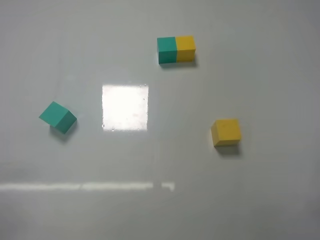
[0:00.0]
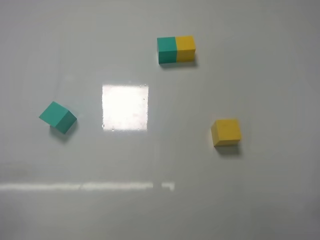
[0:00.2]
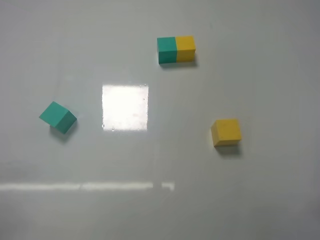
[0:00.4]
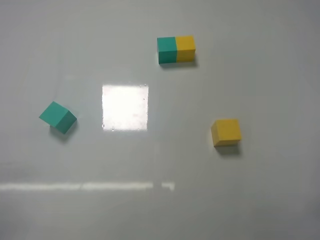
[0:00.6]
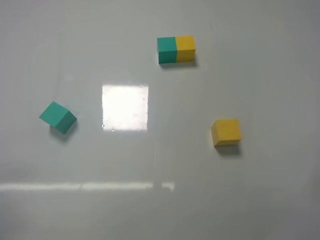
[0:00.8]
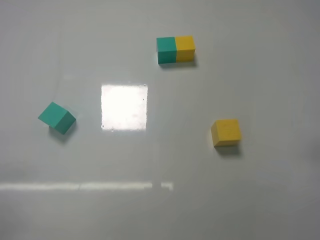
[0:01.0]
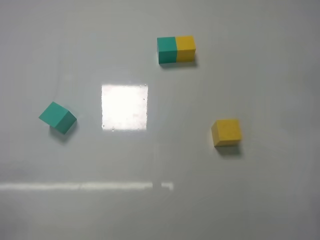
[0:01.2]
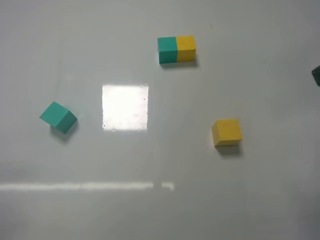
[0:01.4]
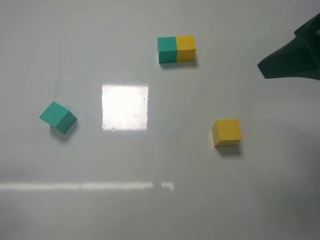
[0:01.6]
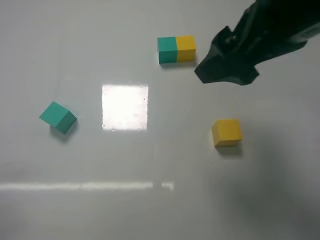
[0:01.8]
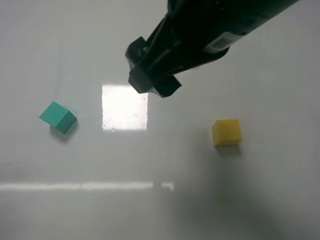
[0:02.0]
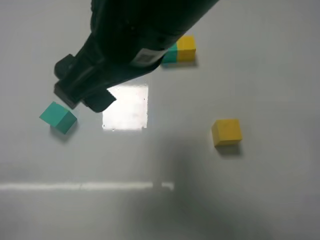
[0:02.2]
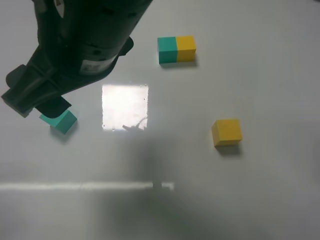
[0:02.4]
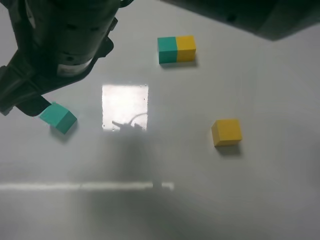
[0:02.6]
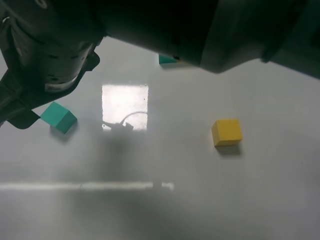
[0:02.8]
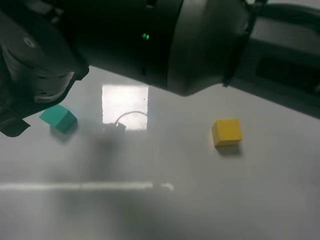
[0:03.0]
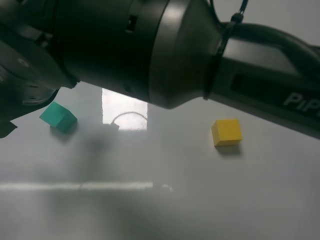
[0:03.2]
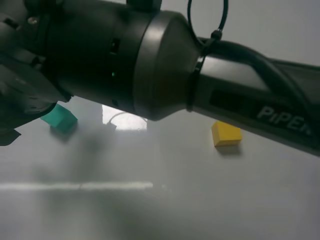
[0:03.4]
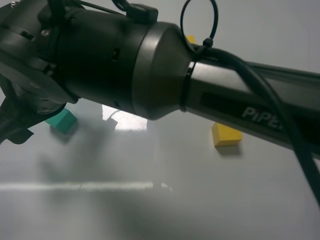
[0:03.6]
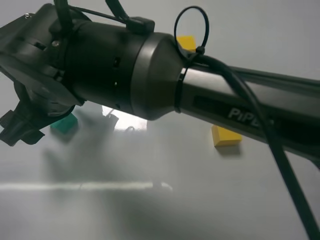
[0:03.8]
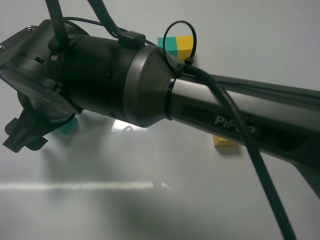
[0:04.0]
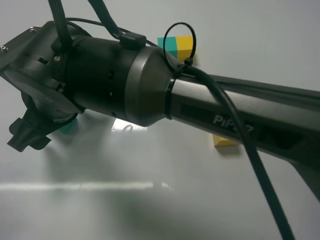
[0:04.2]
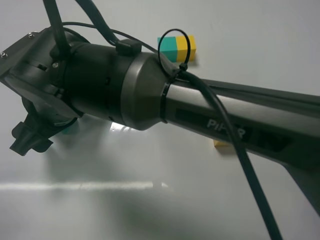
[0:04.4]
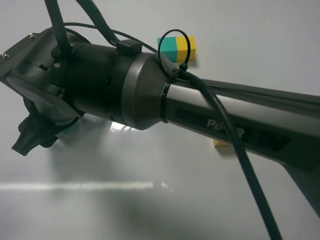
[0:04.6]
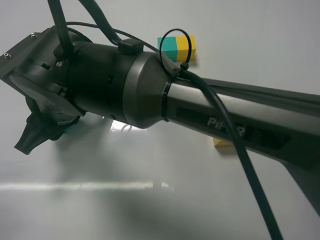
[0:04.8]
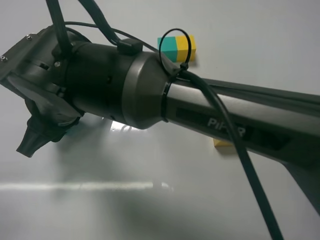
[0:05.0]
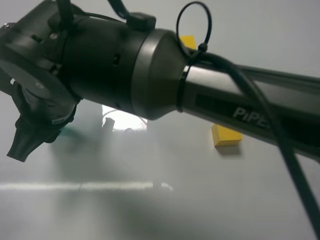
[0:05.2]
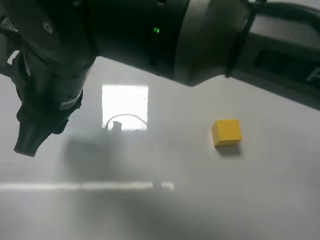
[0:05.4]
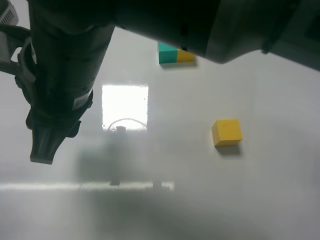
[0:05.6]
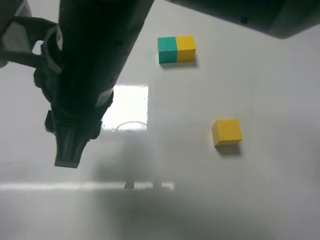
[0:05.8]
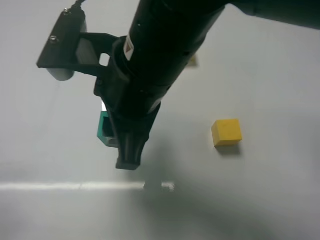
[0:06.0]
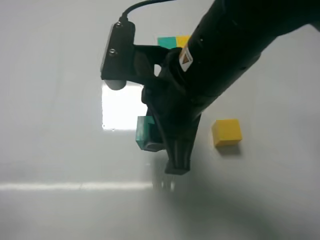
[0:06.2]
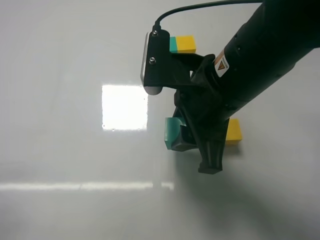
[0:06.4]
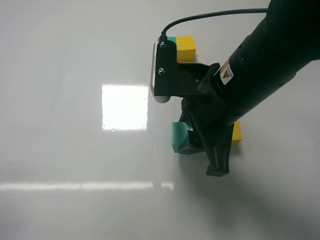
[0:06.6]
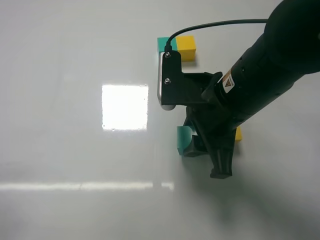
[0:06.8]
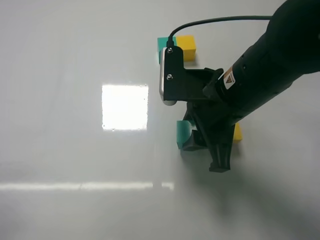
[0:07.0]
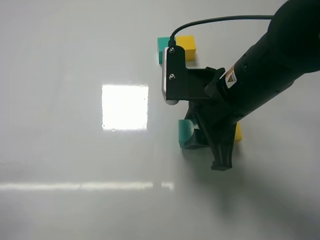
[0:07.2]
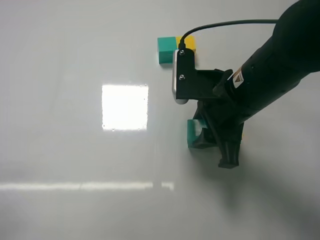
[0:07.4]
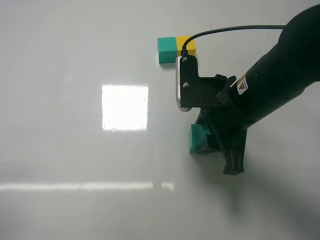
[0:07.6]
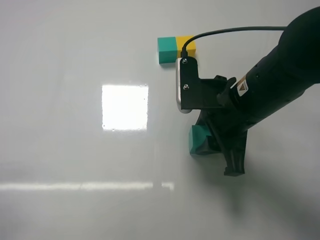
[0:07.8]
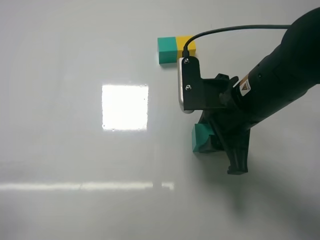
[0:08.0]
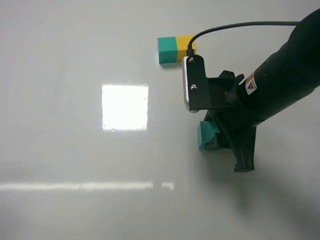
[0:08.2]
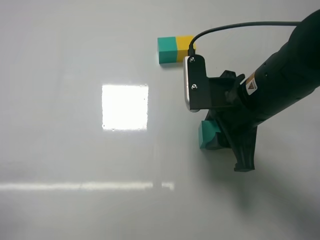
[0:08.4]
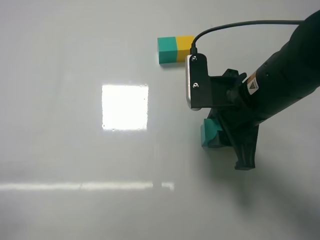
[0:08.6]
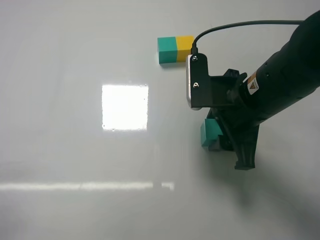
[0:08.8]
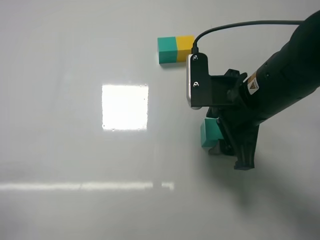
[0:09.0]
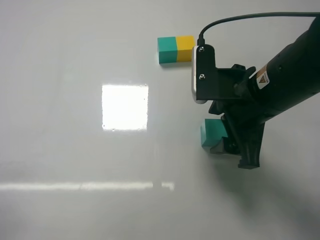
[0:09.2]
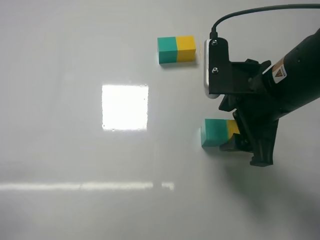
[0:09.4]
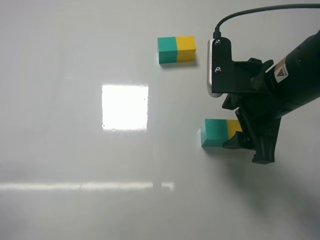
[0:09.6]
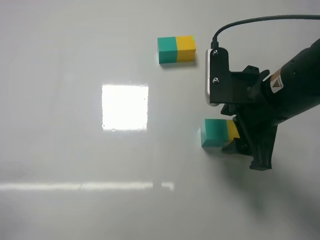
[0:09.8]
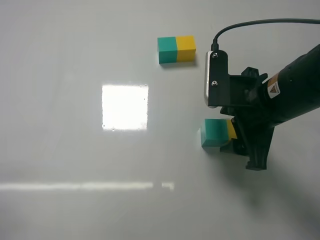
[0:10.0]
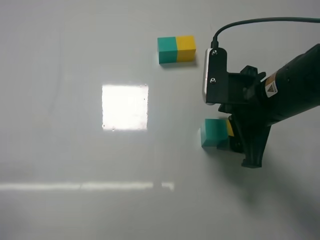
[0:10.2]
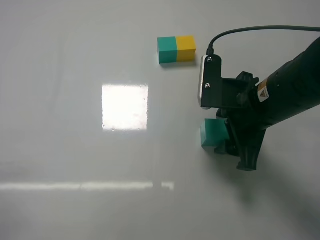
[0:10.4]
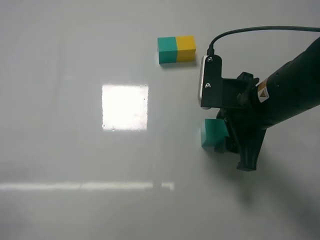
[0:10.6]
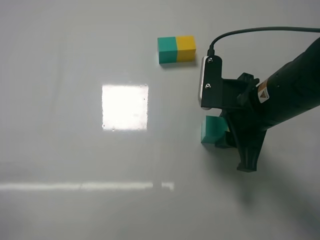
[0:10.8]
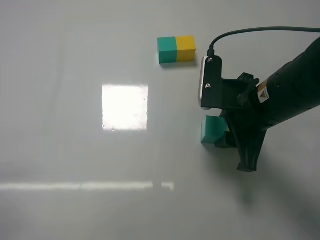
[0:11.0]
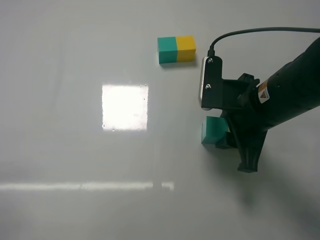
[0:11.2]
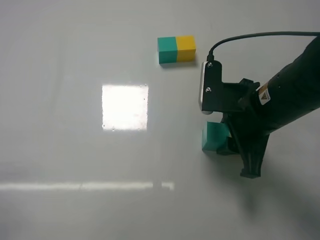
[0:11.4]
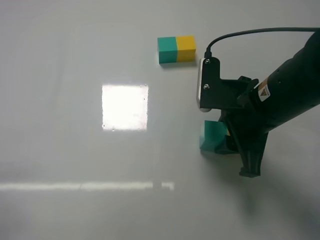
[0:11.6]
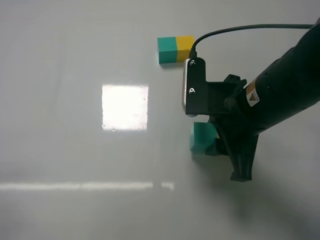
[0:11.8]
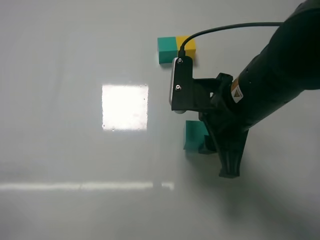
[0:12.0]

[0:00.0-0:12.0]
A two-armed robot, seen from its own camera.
Task of the whole recording: According to the building block template in front, assemble the scattered blocks together.
Step, 0:00.0 to 0:04.8: Grasp the green block with right gripper.
Step, 0:05.0 to 0:09.0: Put the green cube on the left of the yellow cube with the right gripper.
0:00.0 to 0:01.6: The right gripper travels upward, forward and to the left by approximately 25 cm.
0:01.6 to 0:03.0: The right gripper travels to the left by about 30 cm.
0:03.0 to 0:04.4: The right gripper travels downward by some 5 cm.
0:04.4 to 0:06.0: The right gripper is displaced to the right and upward by approximately 15 cm, and closes its fingers.
0:06.0 to 0:07.6: The right gripper is displaced to the right and downward by some 15 cm.
0:07.6 to 0:09.0: The right gripper opens.
0:09.0 to 0:10.4: The grippers stay close to where they were, moving slightly.
0:10.4 to 0:12.0: The right gripper closes its fingers.

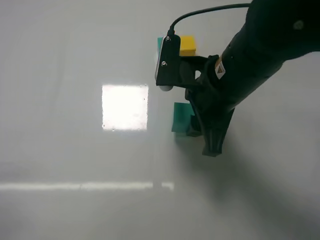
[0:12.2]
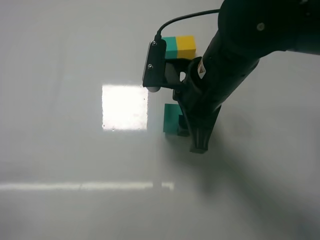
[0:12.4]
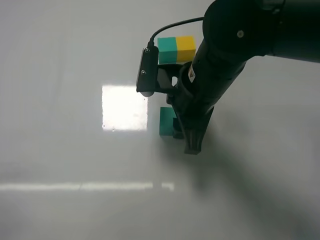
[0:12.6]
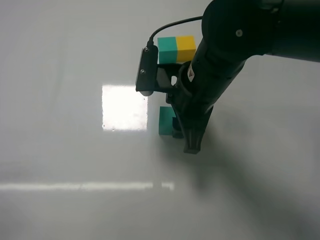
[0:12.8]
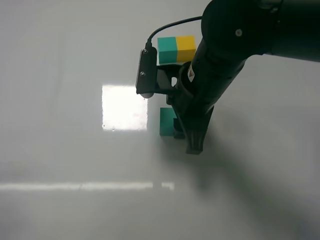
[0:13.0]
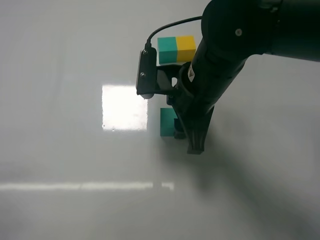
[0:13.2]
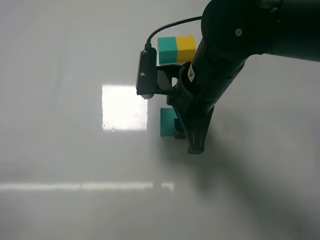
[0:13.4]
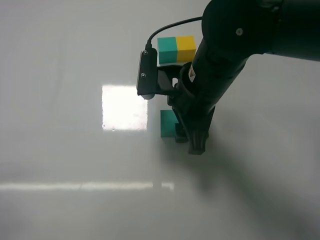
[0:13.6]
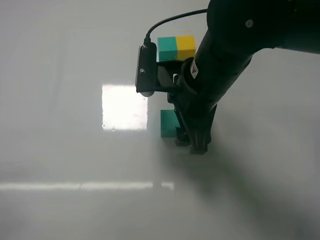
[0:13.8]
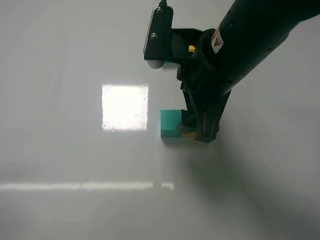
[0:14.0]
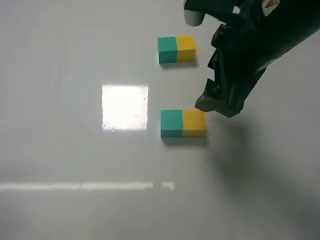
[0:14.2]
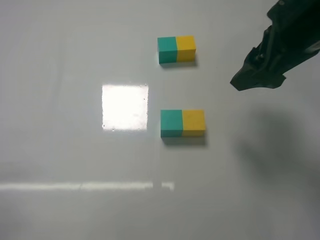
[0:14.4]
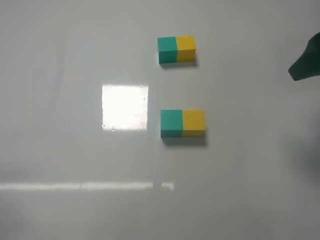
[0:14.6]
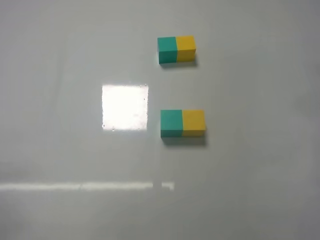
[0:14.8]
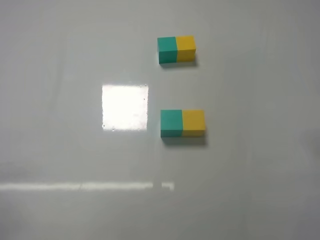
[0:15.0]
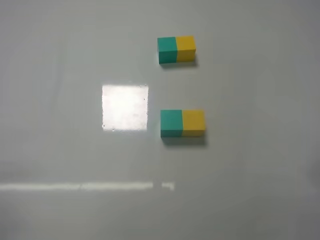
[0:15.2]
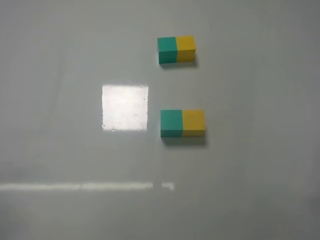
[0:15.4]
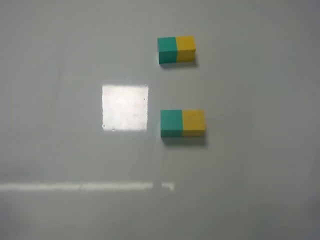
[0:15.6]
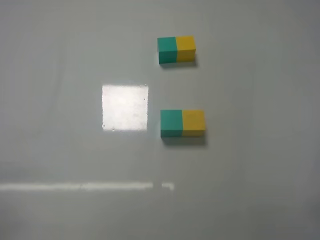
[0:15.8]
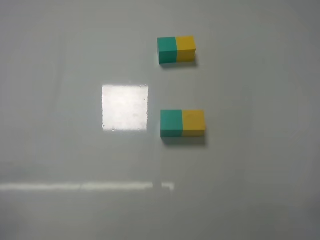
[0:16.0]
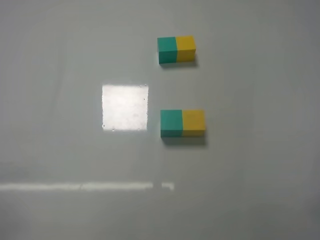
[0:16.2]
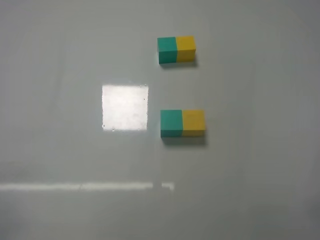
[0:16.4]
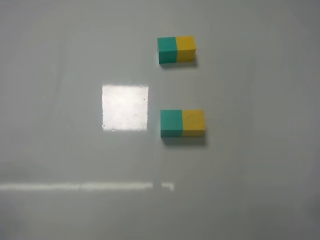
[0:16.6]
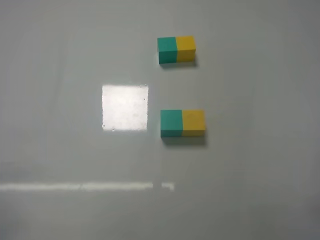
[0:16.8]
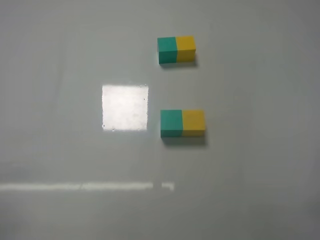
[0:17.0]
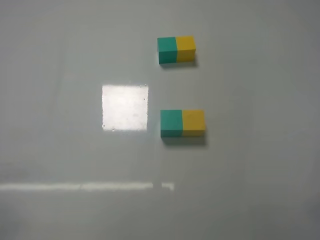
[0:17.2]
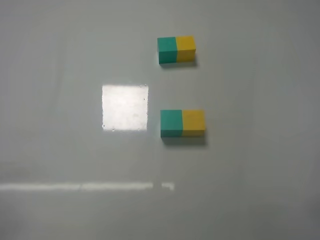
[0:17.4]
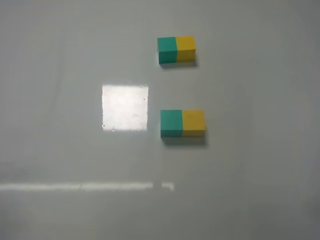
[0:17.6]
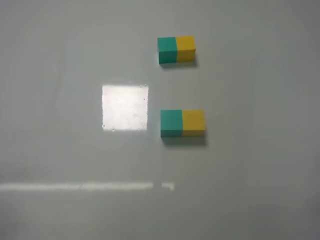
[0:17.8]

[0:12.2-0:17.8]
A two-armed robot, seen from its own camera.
Task of the whole recording: According to the building block template in front, assemble the scattered blocks together.
0:12.2 to 0:13.6: The right gripper opens.
0:13.6 to 0:15.0: The right gripper travels to the right and backward by some 30 cm.
0:15.0 to 0:16.4: The right gripper shifts some 15 cm backward and downward.
0:16.4 to 0:17.8: Both grippers stay put.
